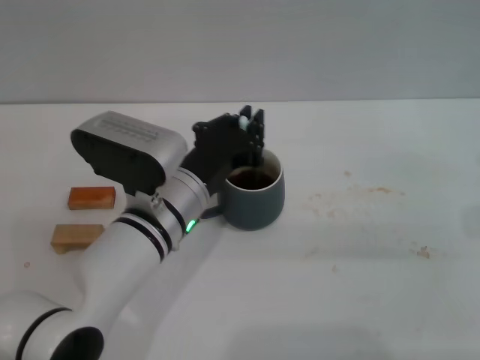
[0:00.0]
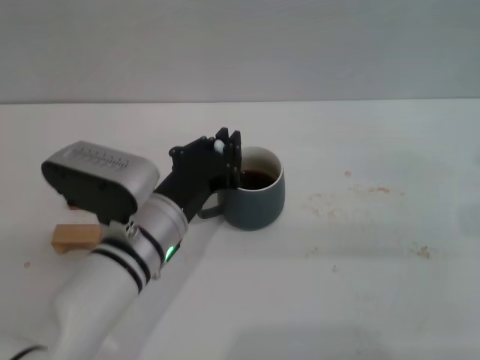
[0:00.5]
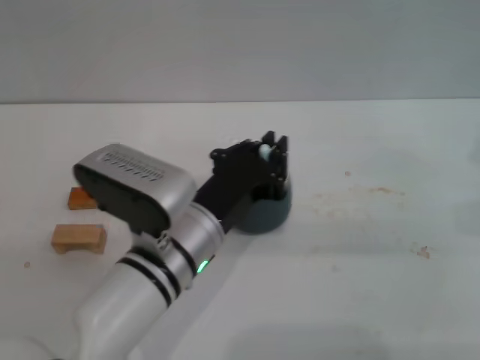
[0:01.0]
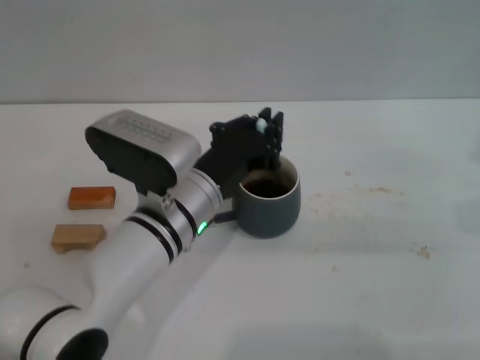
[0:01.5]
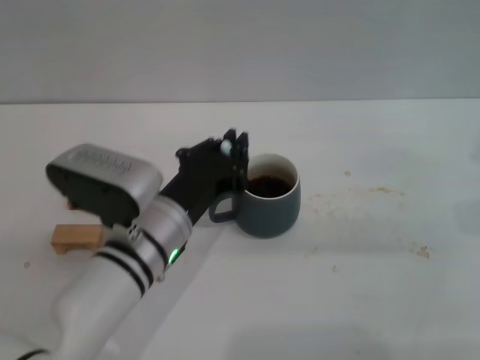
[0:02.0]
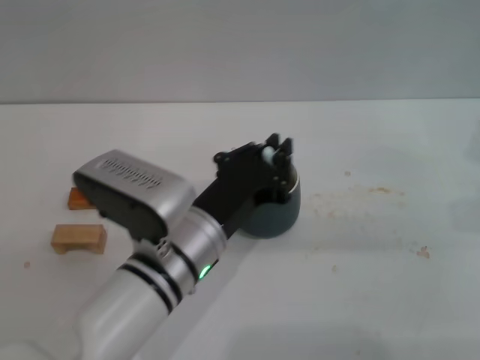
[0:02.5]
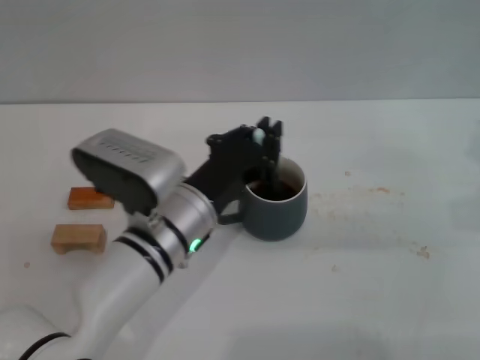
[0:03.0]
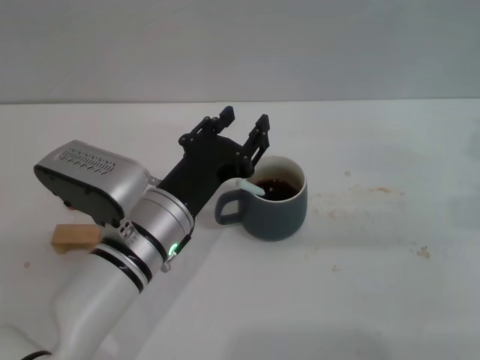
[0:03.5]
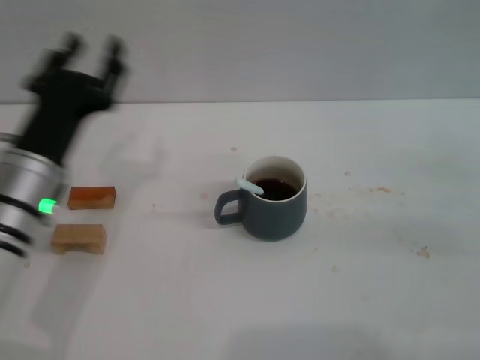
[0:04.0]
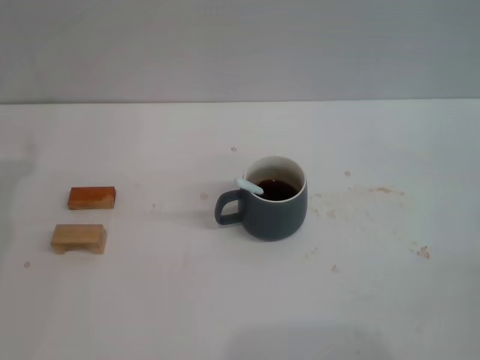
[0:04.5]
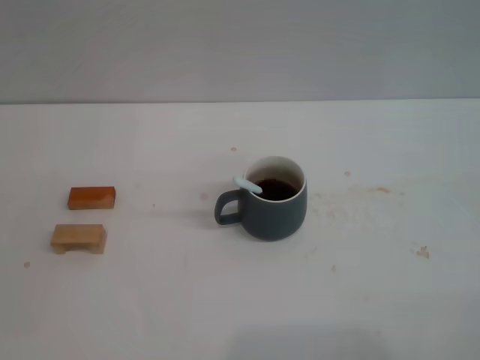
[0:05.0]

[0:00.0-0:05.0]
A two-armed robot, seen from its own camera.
Task of the whole recording: Move the grey cup to the center, lift the blue spoon, stir it three times in the cup, and put the spoon into the cup.
Step, 0:00.0 to 0:03.0: Stir the coffee in the cup with the left gripper.
0:00.0 to 0:02.5: The left gripper goes forward and backward, approximately 5 cm each way, reversing 2 times.
0:02.5 to 0:05.0: The left gripper goes roughly 30 cm to the left, and opens its fingers. The right gripper moves to the right, backward and downward, some 20 cm.
